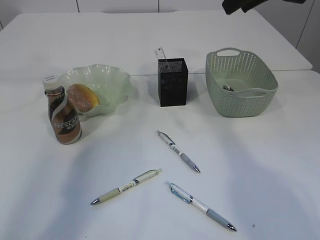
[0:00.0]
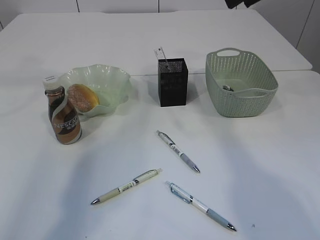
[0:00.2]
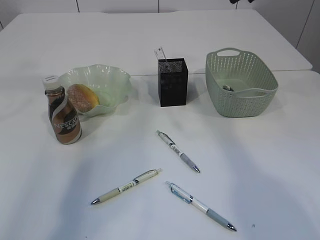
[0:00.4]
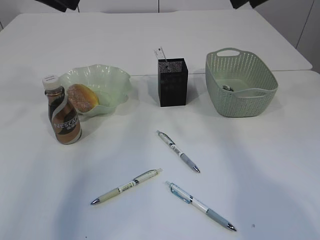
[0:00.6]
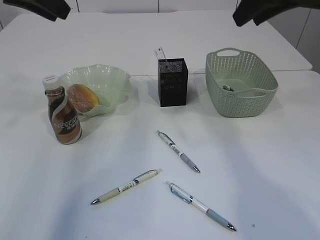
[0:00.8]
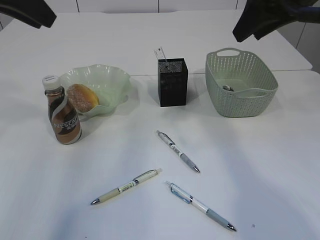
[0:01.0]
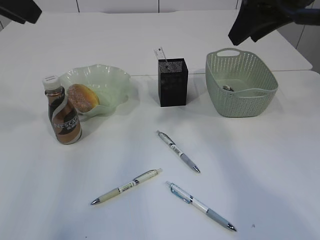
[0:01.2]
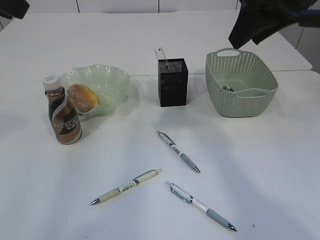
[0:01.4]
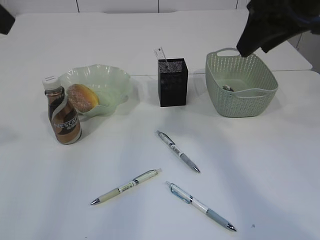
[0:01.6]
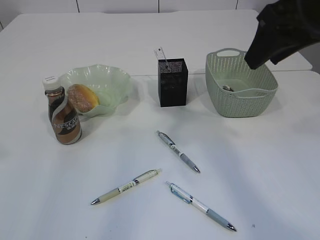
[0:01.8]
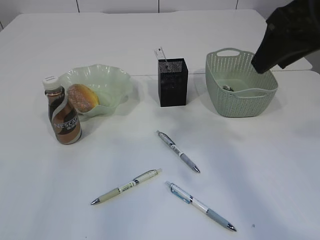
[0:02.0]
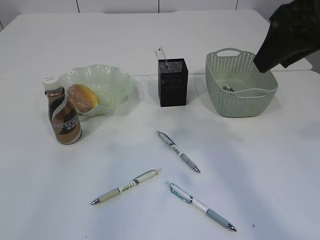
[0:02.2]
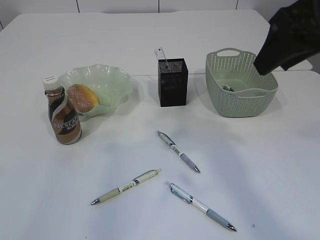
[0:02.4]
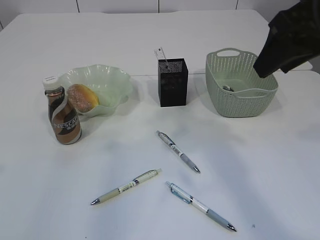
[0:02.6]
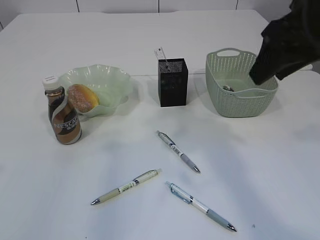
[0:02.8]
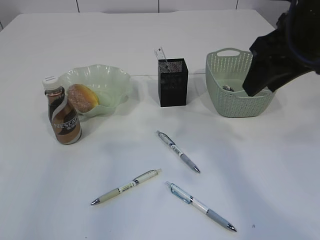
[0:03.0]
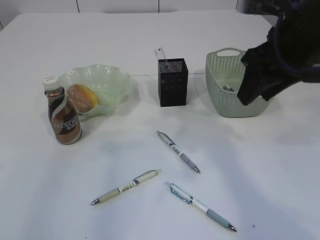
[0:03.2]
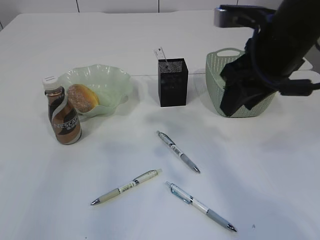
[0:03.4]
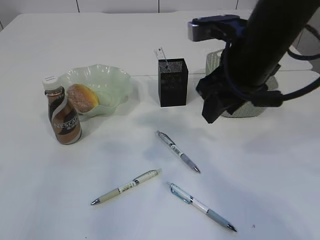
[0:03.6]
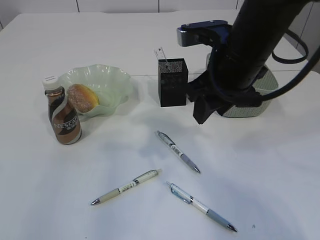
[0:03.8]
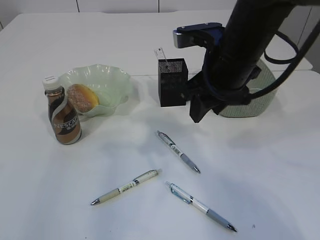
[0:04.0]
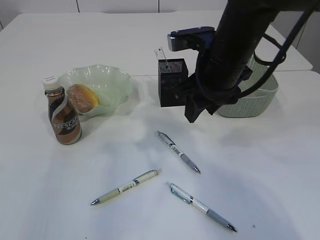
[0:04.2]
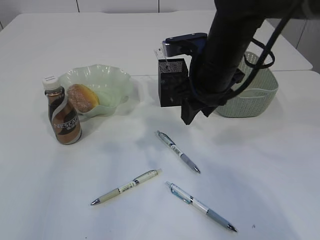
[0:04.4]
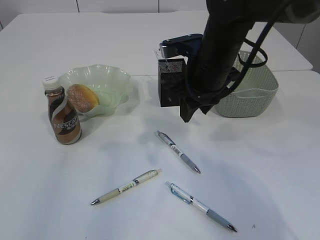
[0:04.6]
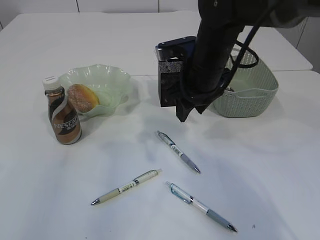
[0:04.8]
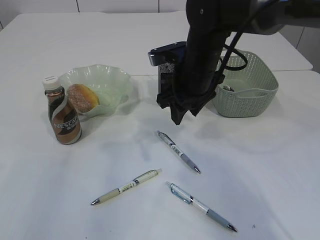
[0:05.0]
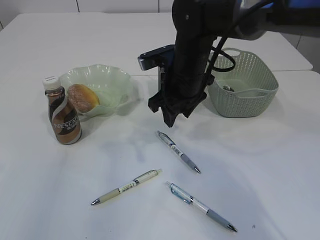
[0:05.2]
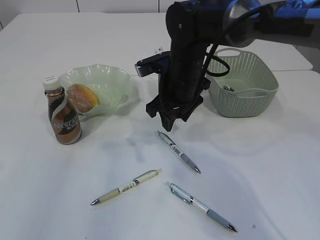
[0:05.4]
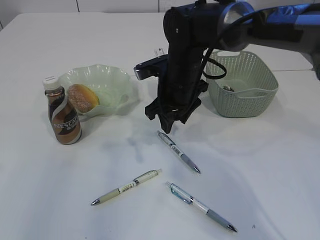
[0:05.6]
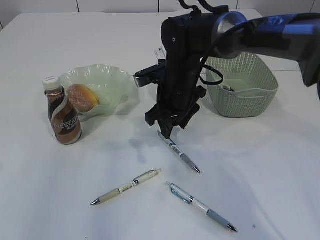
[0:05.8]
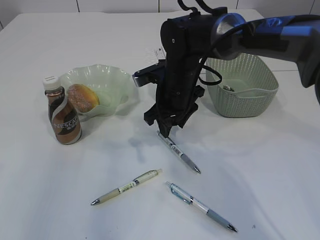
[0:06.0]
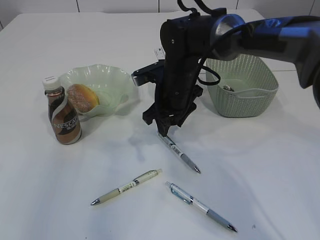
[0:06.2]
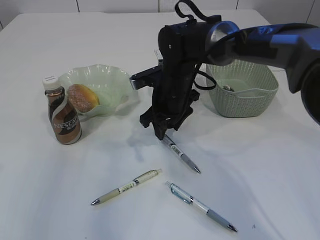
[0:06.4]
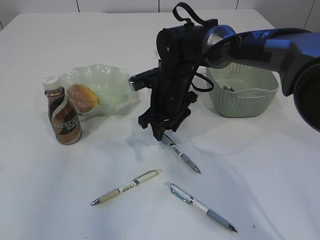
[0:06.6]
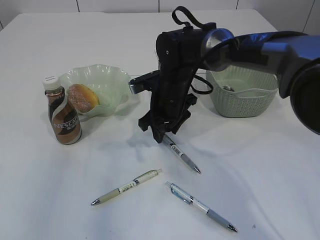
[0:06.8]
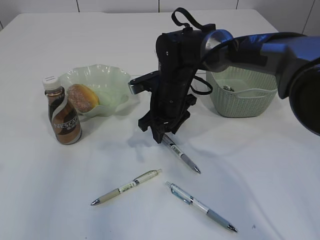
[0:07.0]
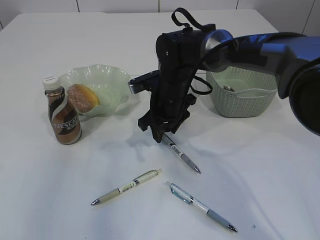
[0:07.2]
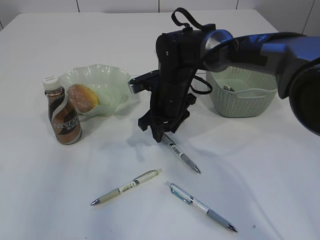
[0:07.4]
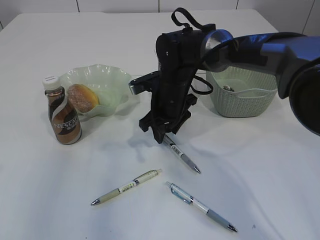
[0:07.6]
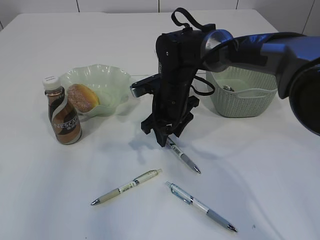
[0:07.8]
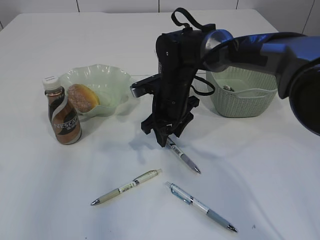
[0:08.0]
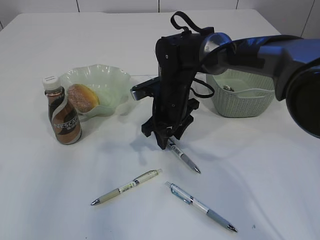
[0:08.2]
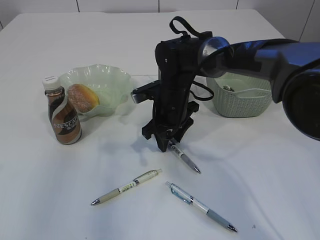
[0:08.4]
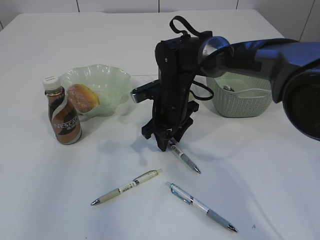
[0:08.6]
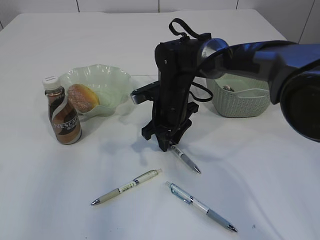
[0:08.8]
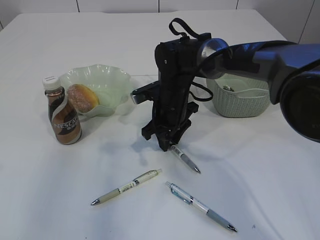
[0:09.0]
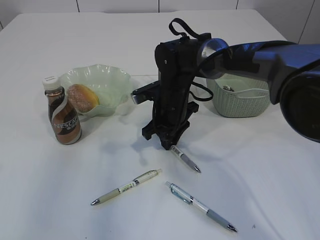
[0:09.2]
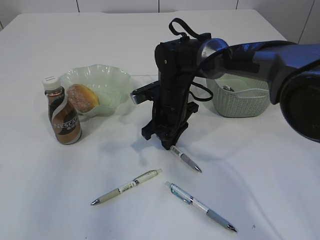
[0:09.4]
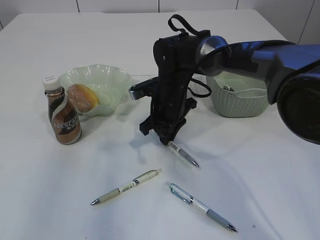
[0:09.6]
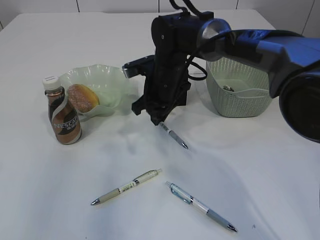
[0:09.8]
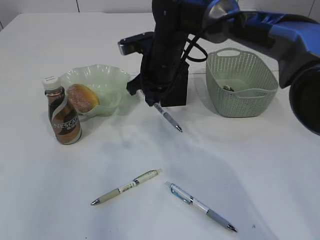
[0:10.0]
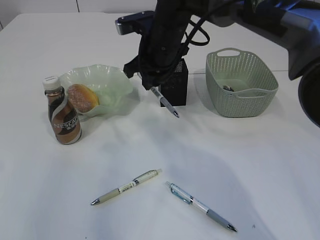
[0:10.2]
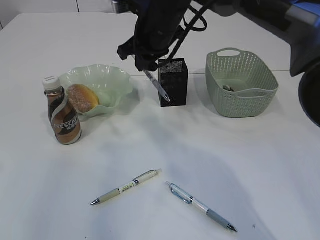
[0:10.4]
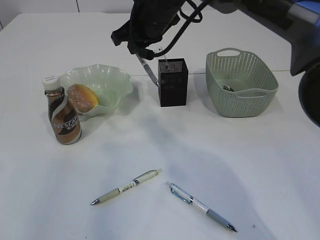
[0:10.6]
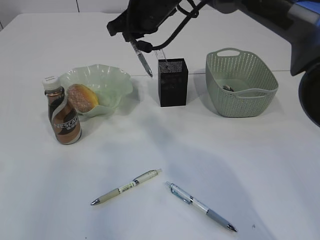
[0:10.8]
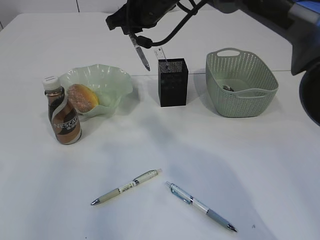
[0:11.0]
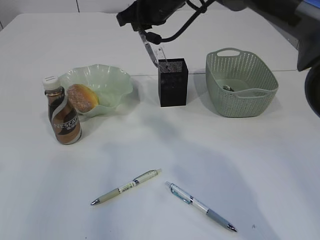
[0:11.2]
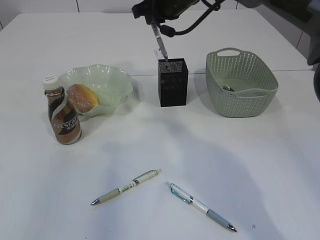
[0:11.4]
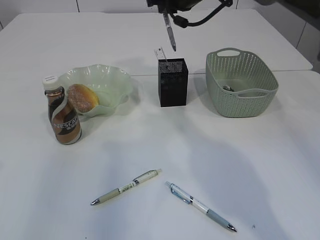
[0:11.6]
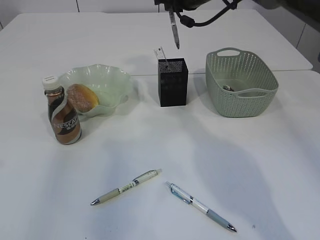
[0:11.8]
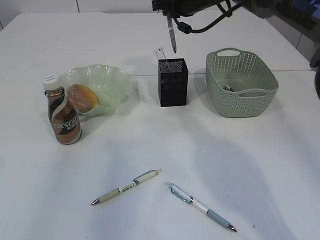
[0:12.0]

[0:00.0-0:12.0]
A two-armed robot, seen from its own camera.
Step, 0:00.0 to 0:10.2: Pick up the pen with right arm.
0:00.0 to 0:01.6: The right gripper shifts about 10 cm backward, while the left gripper is displaced backward by about 20 cm.
0:03.0 to 0:04.4: The right gripper heads downward, to the left and forward, covering some 15 cm.
0:04.4 to 0:06.0: The right gripper goes about 10 cm downward and forward.
0:06.0 to 0:09.0: There are only small adjustments of the grippers.
0:09.0 to 0:10.4: The right gripper travels upward by some 15 cm, and closes.
0:10.4 to 0:12.0: The right gripper heads forward and to the right, covering roughly 10 cm.

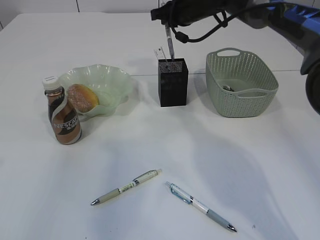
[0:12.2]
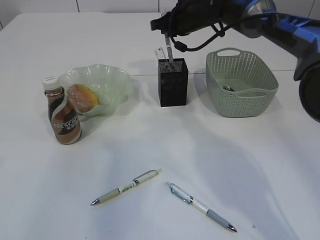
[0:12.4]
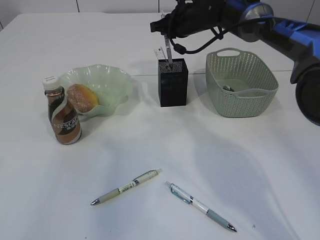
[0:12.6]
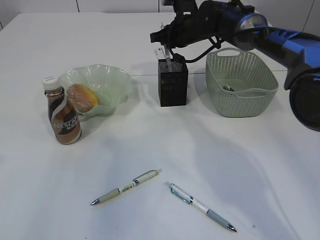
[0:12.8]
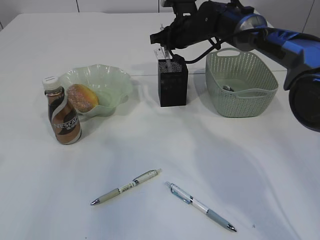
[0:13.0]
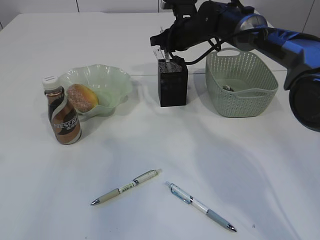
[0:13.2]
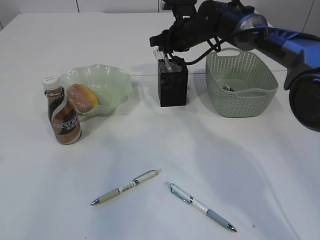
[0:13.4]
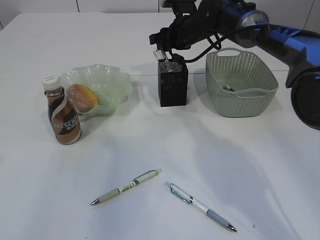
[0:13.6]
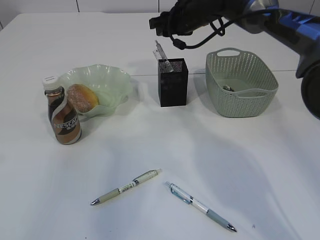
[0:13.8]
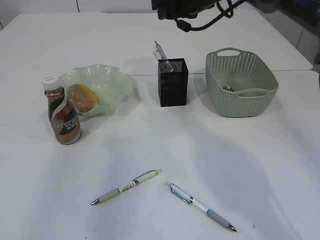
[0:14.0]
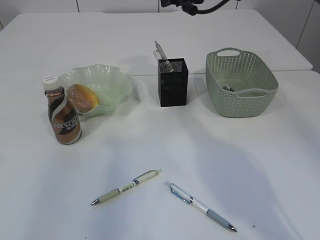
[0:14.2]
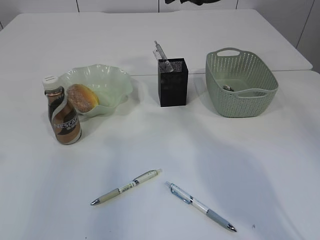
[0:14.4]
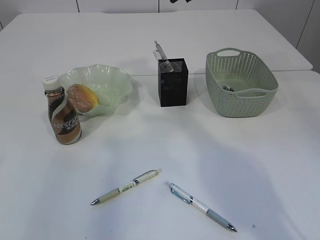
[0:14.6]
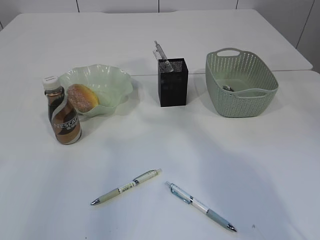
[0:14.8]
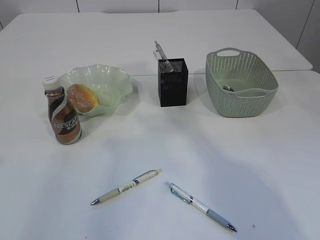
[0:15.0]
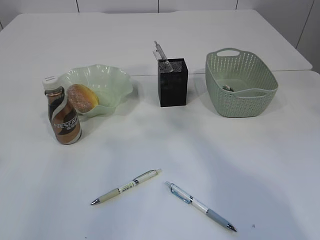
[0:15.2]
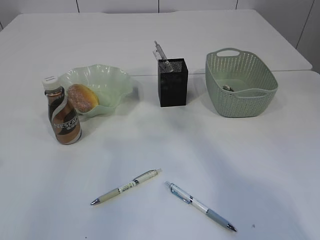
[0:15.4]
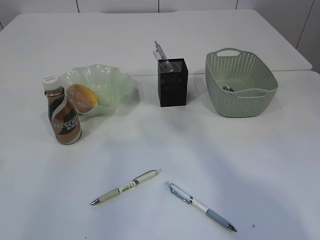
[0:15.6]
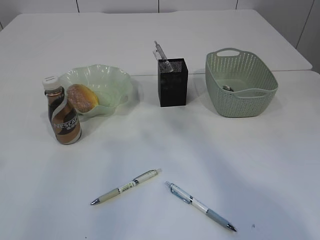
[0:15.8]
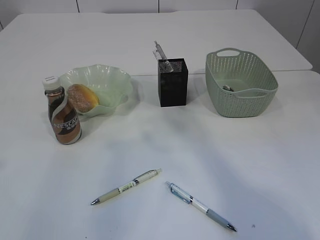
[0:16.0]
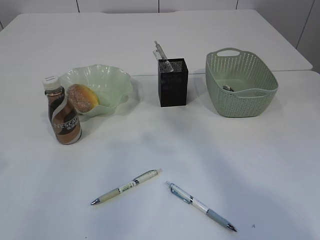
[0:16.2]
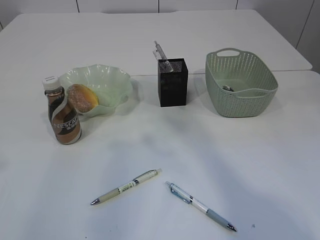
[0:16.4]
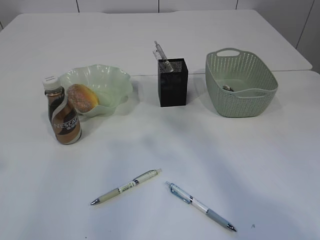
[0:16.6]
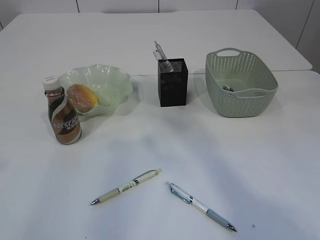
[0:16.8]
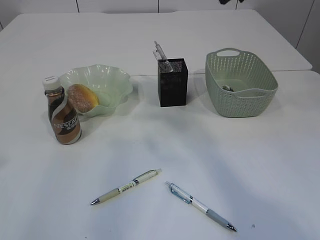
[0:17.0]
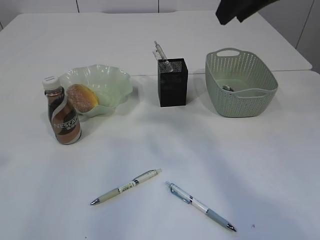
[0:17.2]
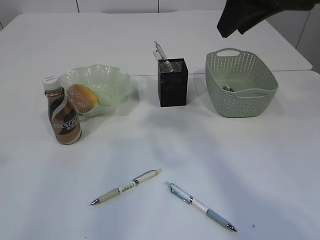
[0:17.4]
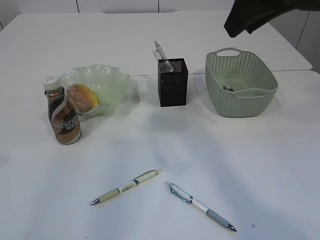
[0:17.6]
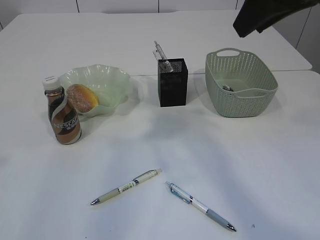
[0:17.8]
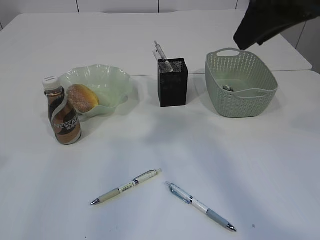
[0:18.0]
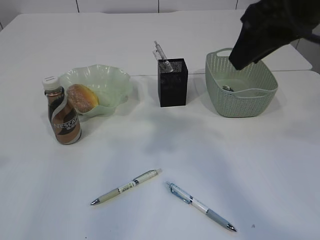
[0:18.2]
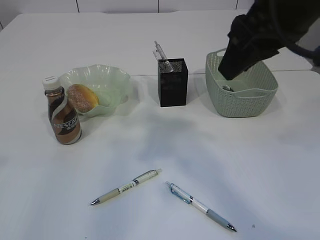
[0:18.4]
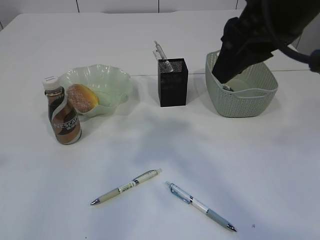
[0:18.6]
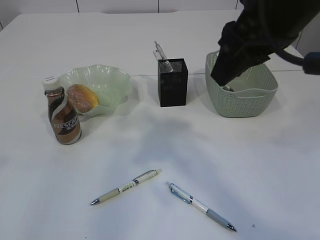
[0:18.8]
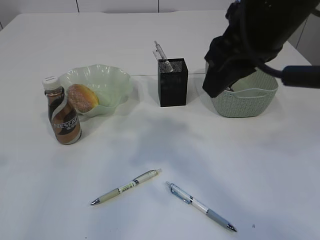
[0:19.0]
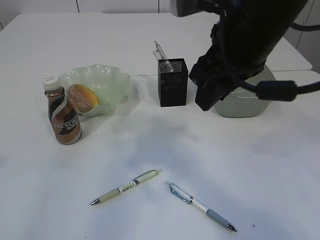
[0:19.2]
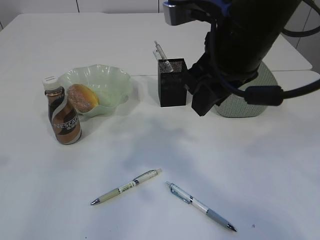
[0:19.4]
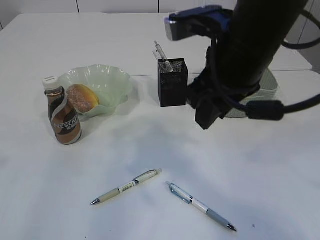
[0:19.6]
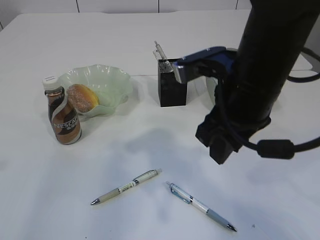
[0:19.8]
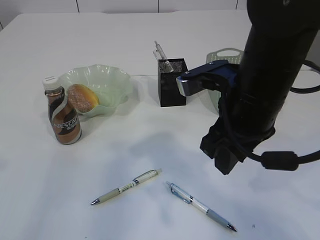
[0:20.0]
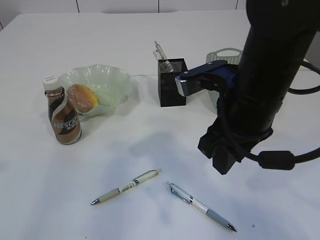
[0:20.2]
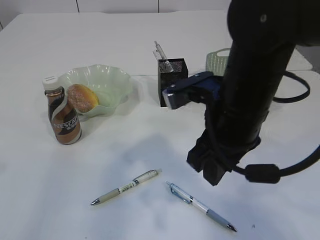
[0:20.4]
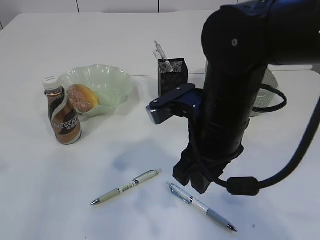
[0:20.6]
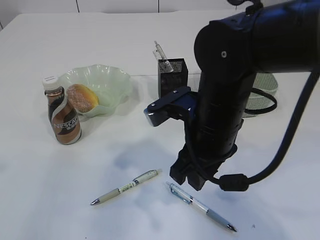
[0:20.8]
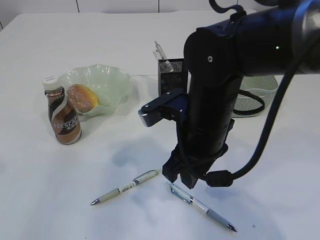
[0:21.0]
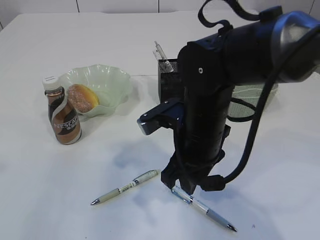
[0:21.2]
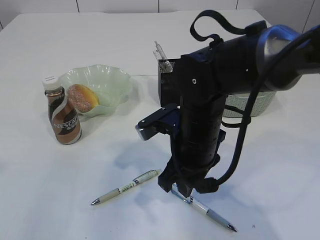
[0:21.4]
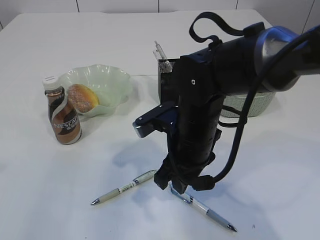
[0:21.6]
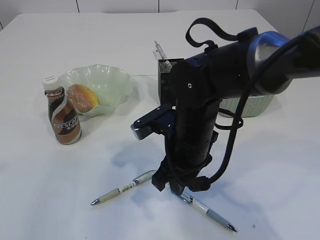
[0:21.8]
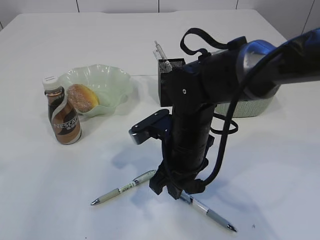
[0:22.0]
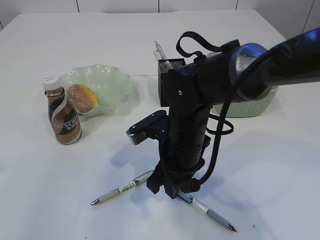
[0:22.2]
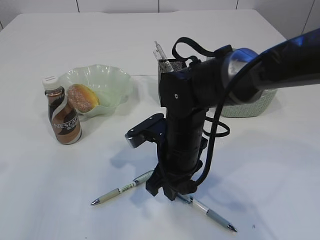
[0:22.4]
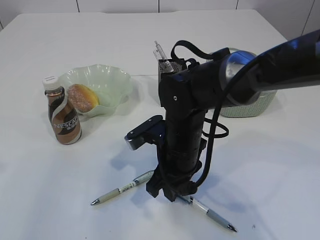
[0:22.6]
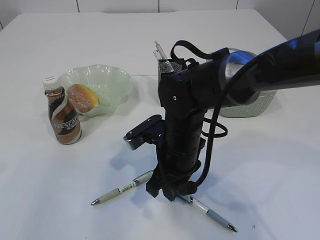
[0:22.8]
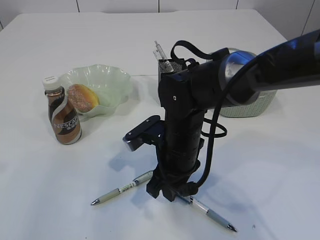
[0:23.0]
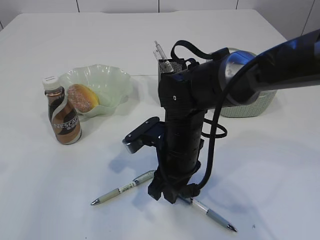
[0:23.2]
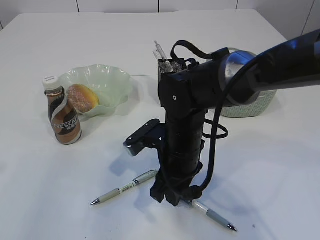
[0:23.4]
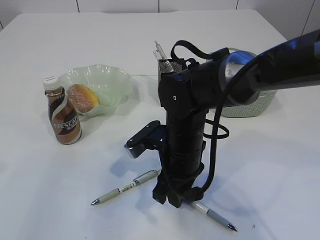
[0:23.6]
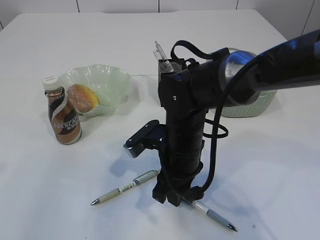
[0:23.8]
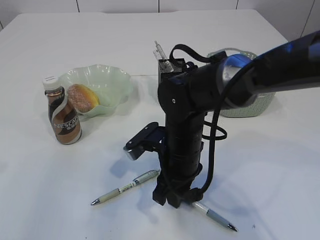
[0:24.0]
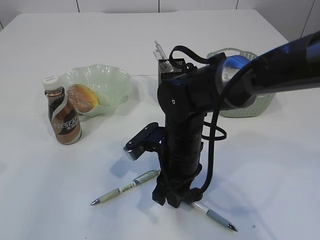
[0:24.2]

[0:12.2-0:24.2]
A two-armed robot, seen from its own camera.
0:12.2 to 0:13.8: The right gripper opens.
0:13.8 to 0:15.2: The right gripper moves upward and backward, roughly 25 cm.
0:16.6 to 0:18.2: The right gripper is displaced downward and backward by roughly 10 cm.
0:18.2 to 0:19.8: The right gripper travels downward and to the left by approximately 10 cm.
0:19.8 to 0:21.2: The right gripper shifts approximately 10 cm downward.
0:21.2 to 0:22.6: The right gripper travels downward by about 5 cm.
0:22.6 to 0:24.2: The grippers stay close to where they were, moving slightly.
